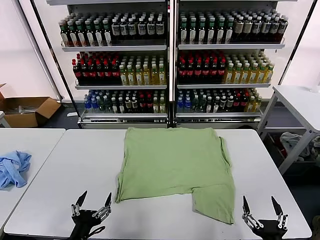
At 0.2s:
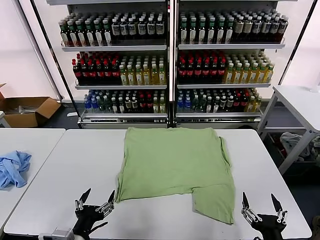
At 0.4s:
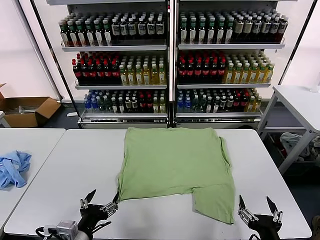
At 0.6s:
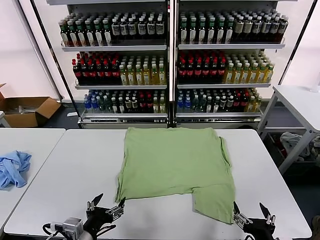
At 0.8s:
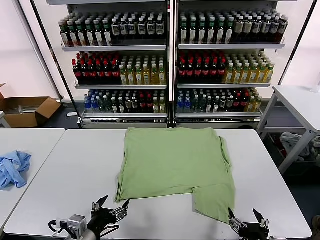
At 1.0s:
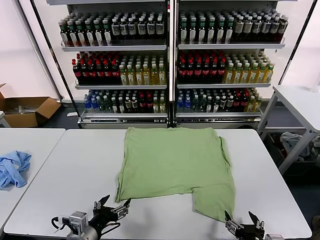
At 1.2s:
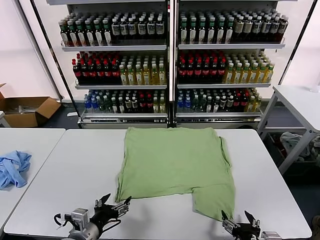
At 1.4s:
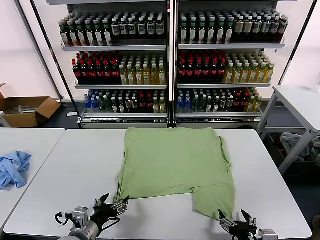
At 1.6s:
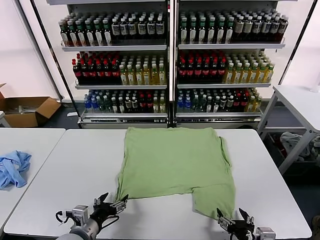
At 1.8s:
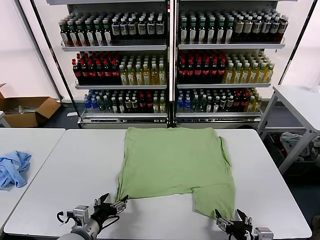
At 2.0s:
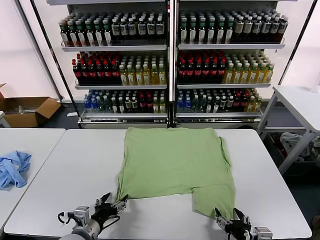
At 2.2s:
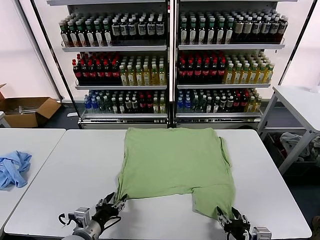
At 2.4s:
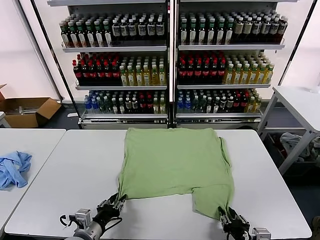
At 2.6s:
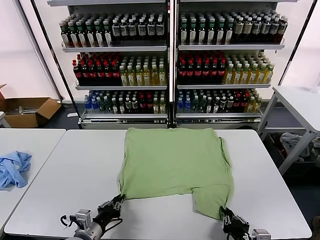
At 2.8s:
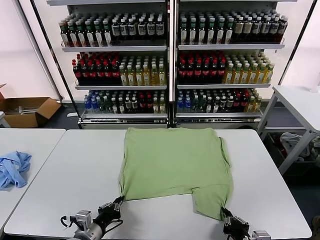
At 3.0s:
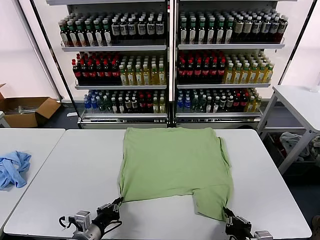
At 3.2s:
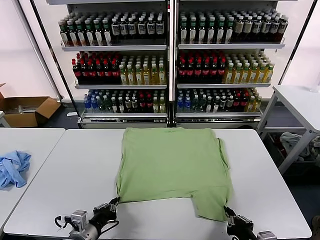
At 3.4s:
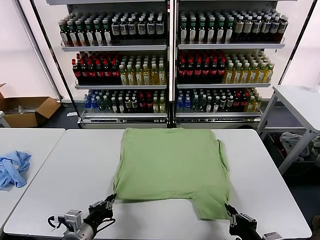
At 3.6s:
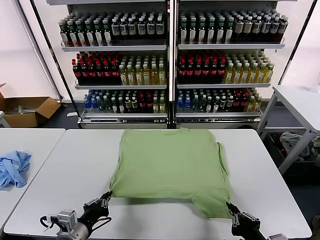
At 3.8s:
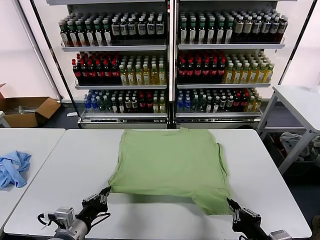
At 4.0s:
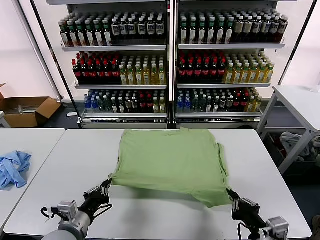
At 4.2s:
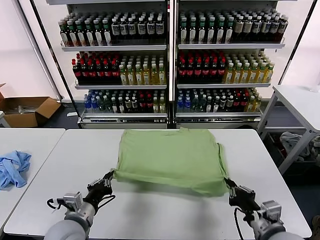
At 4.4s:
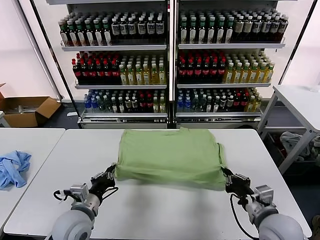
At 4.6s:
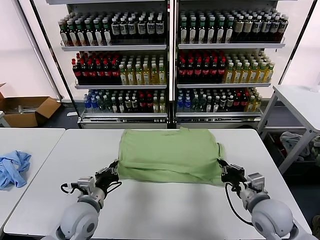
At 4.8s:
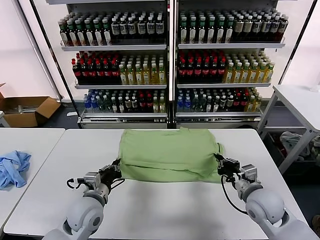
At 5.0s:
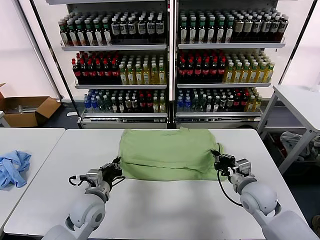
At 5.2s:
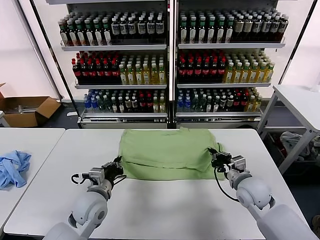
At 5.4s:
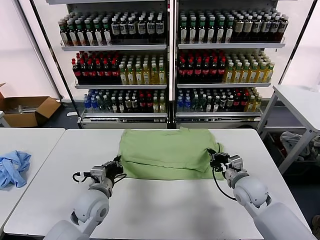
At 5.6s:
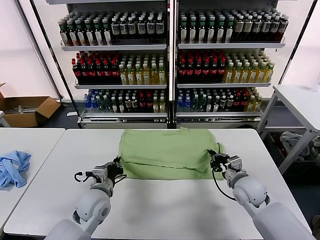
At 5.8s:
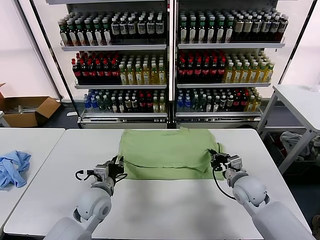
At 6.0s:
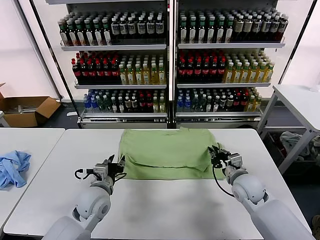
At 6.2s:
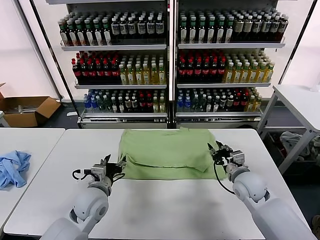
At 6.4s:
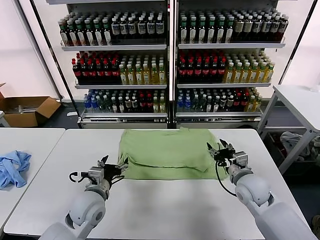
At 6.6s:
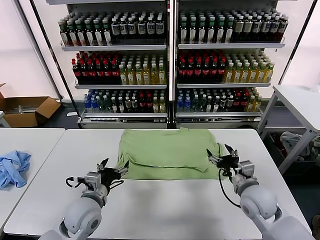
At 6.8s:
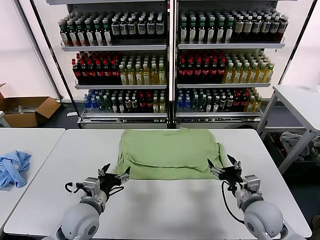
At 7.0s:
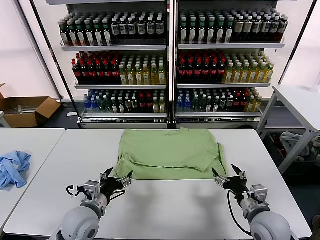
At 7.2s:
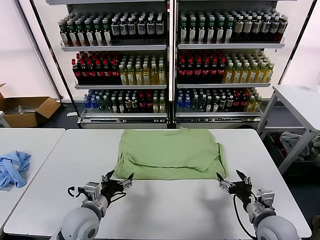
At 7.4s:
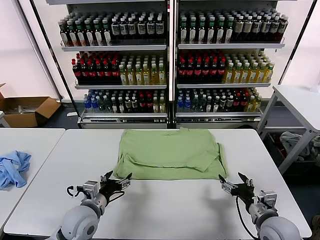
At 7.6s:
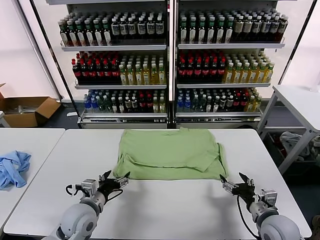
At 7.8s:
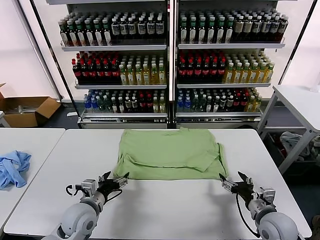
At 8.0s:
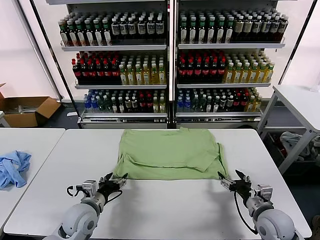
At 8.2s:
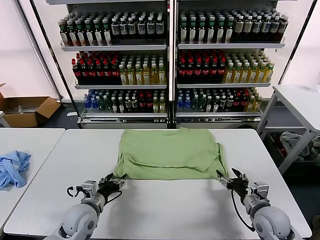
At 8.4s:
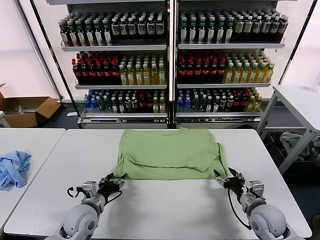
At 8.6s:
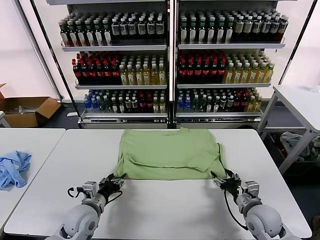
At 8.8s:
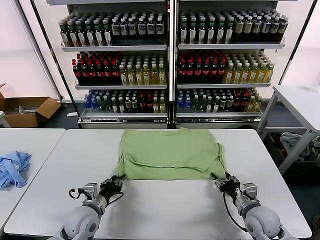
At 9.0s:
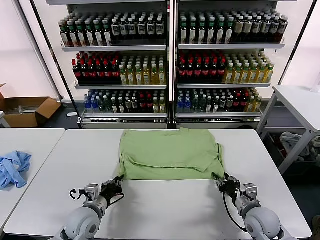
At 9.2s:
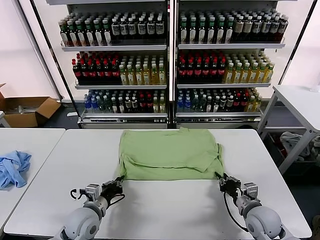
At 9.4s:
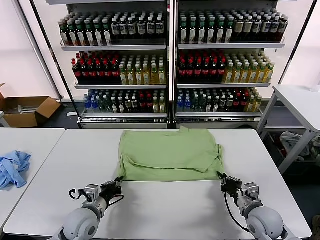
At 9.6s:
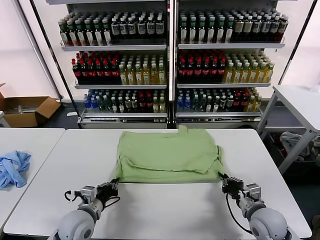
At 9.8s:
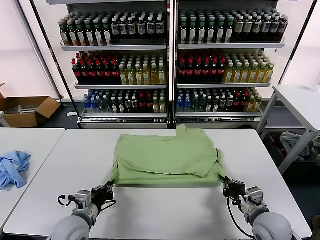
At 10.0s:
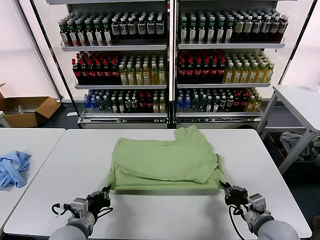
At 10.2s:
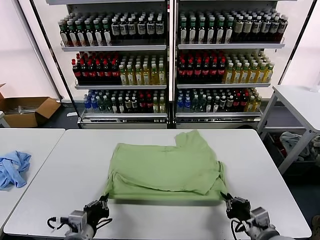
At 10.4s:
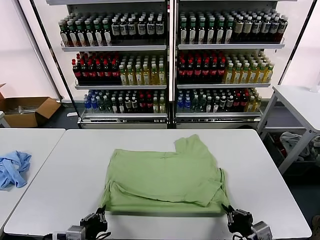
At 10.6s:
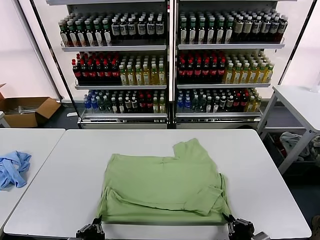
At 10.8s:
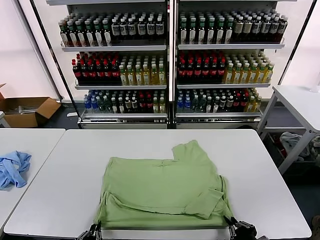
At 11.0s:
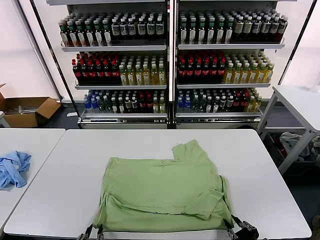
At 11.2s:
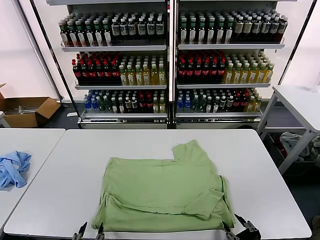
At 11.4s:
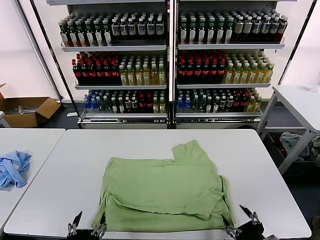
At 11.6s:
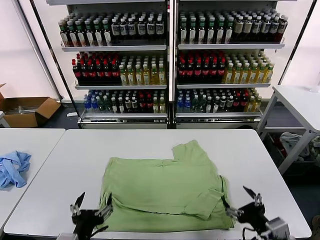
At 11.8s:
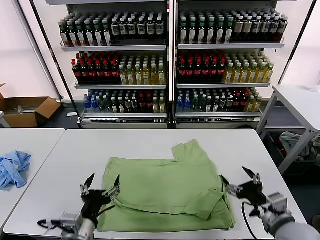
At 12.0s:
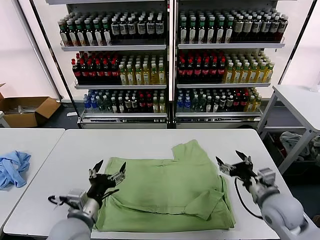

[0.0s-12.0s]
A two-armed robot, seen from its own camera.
Task of the whole recording: fold and organize the clothes.
Step, 0.0s to 2.8s: use both grippers simultaneously to clamp the lower edge of the clothing fabric.
Step, 3.0s to 6.0s: use both grippers to drag the lower edge of the fabric forward and fold it over the upper edge.
Step, 6.2s to 11.0s: Drag the clothes downward with both gripper.
1.6s to 3.0s: The left gripper closes. Meanwhile the right gripper closes its fingers.
3.0s to 4.4s: The left gripper shifts roughly 5 cm forward; the right gripper shifts approximately 15 cm forward.
4.4s to 6.0s: The right gripper is displaced forward by roughly 10 cm, and opens up; the left gripper travels forward by roughly 5 cm, and opens up.
6.0s to 7.6s: The left gripper ends up about 5 cm from where it was, and opens. The right gripper travels backward and to the right by roughly 15 cm, and opens up.
7.6s to 9.0s: The left gripper closes its fingers; the right gripper closes its fingers.
9.0s to 10.4s: Both grippers move backward, approximately 15 cm.
10.4s to 12.0s: The right gripper goes some 20 cm forward, and opens up, while the left gripper heads forward, covering approximately 10 cm, and opens.

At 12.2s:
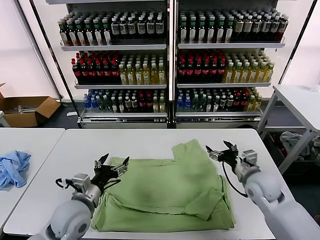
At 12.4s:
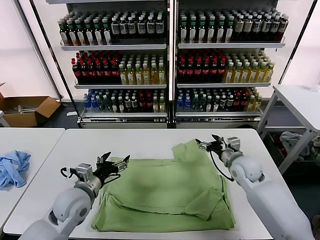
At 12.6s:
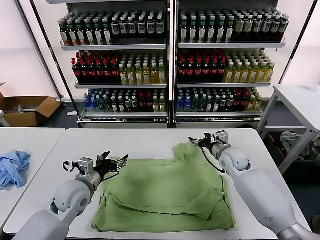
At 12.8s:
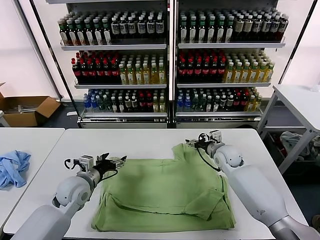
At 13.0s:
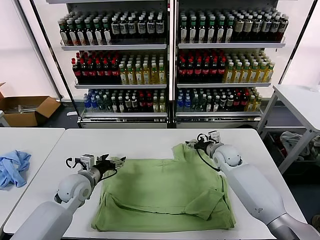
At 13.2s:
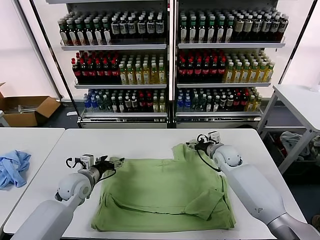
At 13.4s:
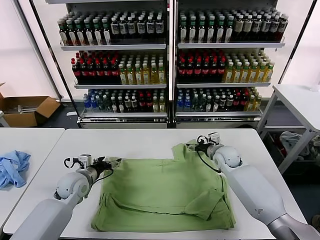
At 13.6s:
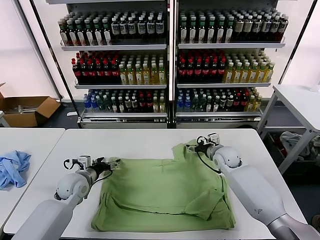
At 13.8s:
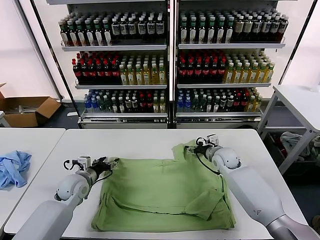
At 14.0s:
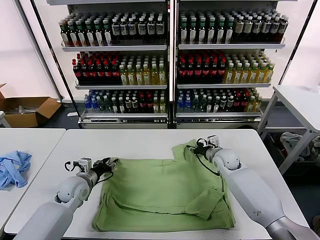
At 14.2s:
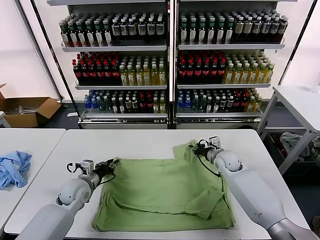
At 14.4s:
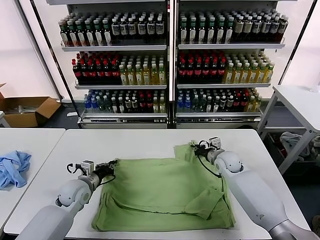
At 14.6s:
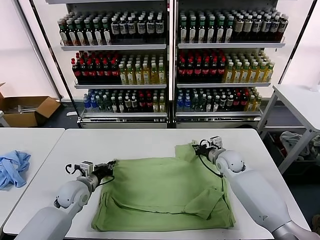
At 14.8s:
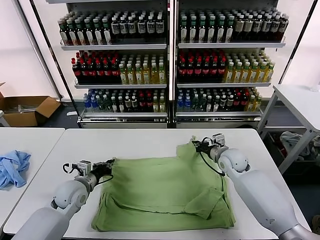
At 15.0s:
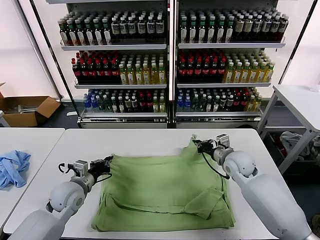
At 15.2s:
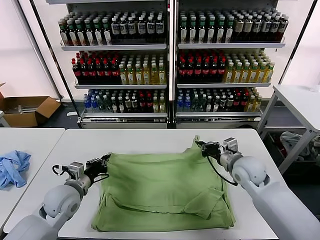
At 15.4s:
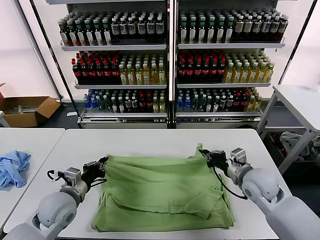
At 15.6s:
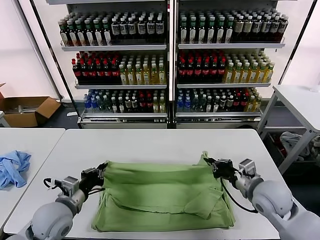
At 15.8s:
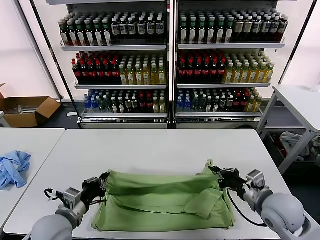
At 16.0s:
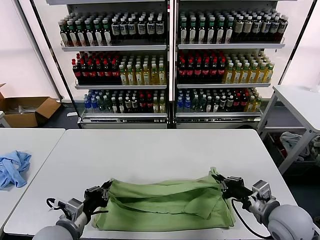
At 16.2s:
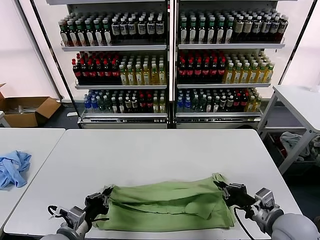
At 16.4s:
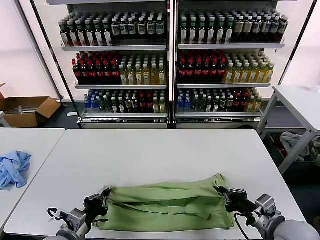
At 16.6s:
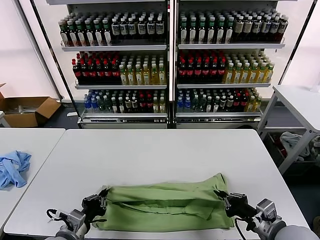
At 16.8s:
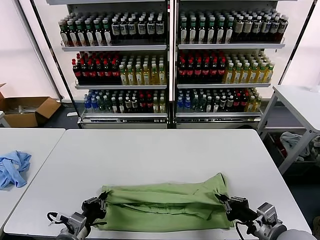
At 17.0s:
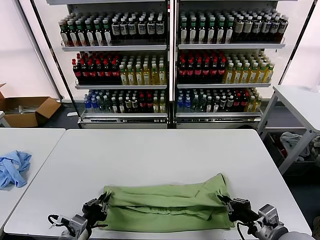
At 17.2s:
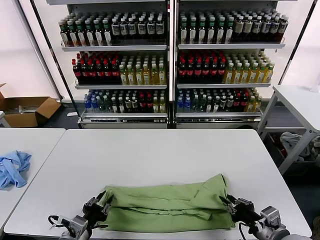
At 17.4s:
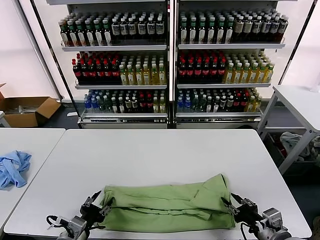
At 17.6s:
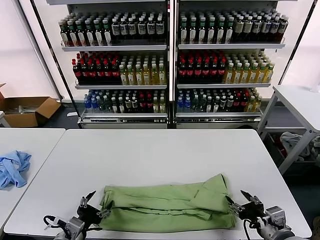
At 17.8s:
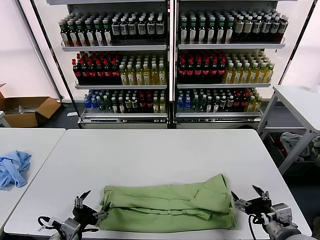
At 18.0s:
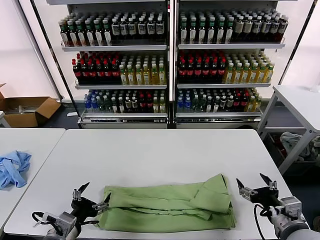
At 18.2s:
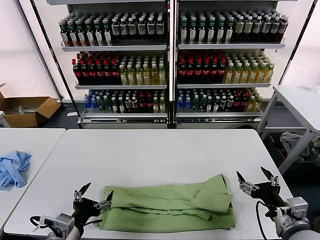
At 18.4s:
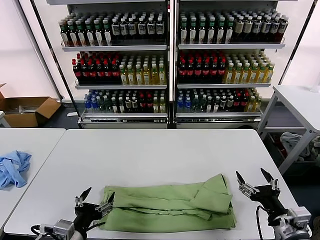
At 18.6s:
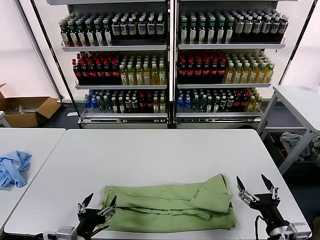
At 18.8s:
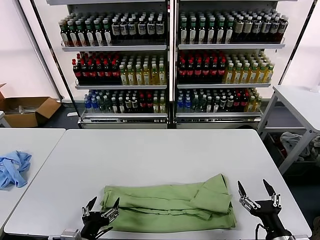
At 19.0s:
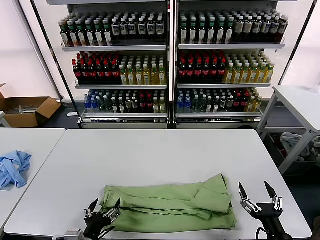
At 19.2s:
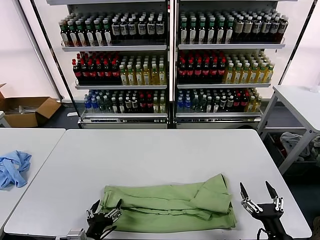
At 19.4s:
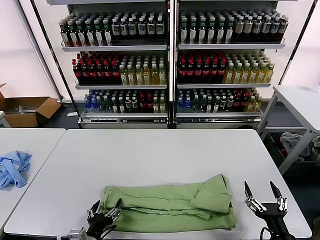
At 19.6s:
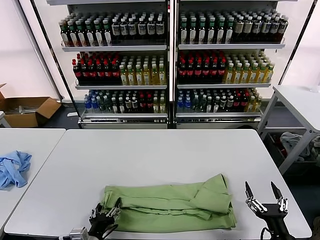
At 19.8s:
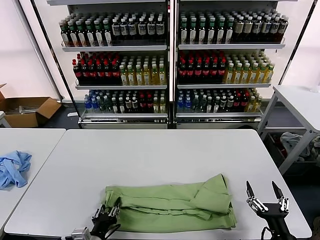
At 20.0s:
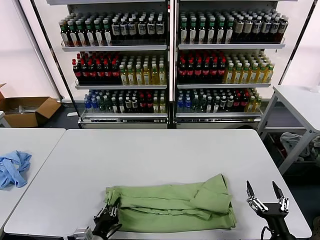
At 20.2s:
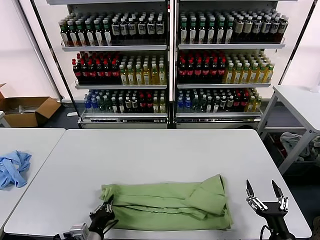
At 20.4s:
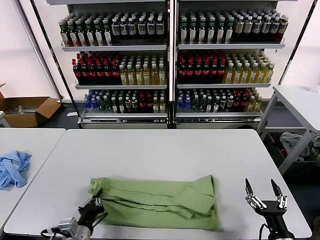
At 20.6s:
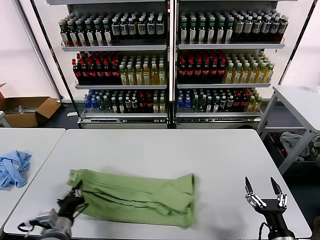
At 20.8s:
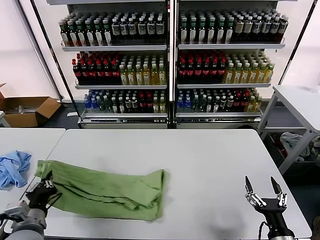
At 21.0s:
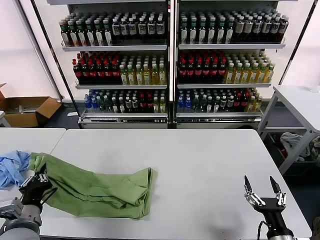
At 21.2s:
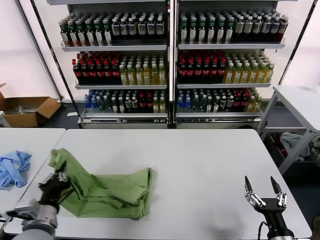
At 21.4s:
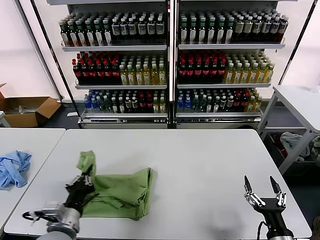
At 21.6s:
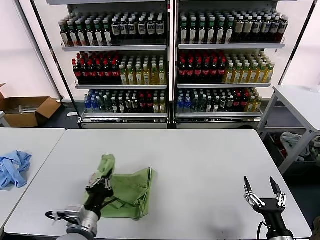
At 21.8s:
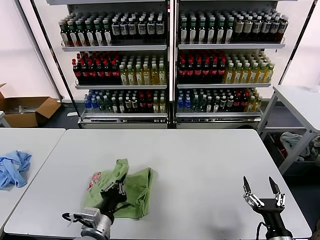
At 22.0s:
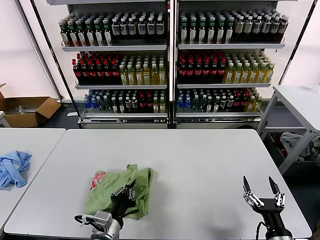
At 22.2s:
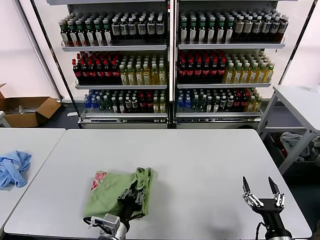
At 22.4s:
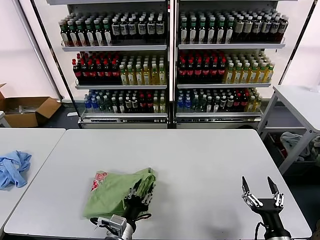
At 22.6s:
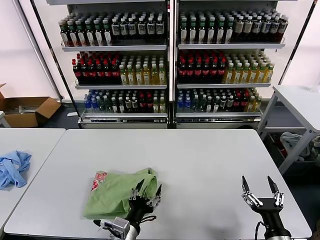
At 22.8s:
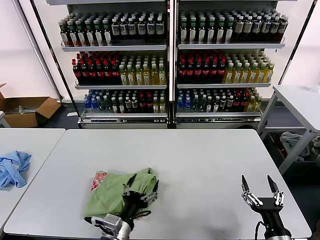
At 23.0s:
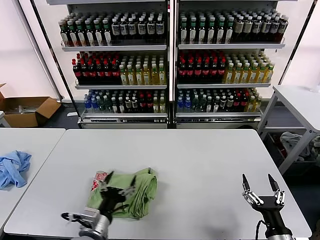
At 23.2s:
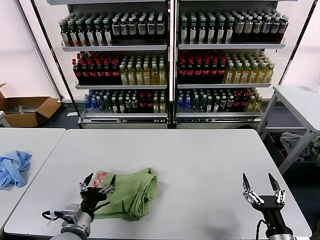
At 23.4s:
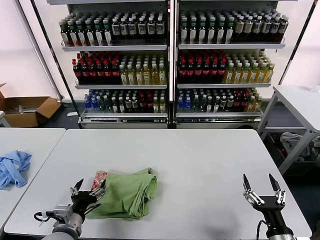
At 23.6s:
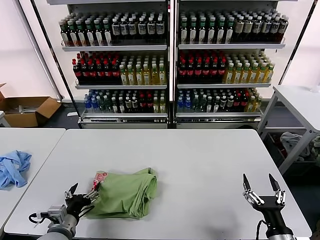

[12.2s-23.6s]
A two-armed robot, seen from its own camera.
Task of the whole recording: fold and organize the clothes.
Step, 12.2s to 14.4s: use both grippers simultaneously to clamp the upper edge of the clothing fabric.
Step, 14.6s to 17.4s: use both grippers to drag the upper edge of the fabric backward and fold it over the lower edge.
Step, 17.6s to 20.0s: use the left gripper to clamp the left edge of the fabric.
Step, 20.4s to 22.4s: use the left gripper to drag the left edge of the fabric to the left and folds it over the right edge.
12.2s to 13.6s: The left gripper moves forward, to the left and downward, approximately 15 cm, while the right gripper shifts about 10 cm forward.
13.6s to 15.0s: The left gripper moves backward, some 5 cm, and closes up; the right gripper is displaced backward and upward by approximately 10 cm, and closes its fingers.
15.0s to 16.4s: The two grippers go approximately 20 cm backward.
16.4s to 17.8s: The left gripper opens its fingers. Meanwhile the right gripper opens up.
17.8s to 19.4s: The right gripper travels downward and backward by roughly 10 cm; the left gripper is displaced downward and to the right by some 10 cm.
19.4s to 20.8s: The left gripper moves to the left and upward, some 15 cm, and closes.
20.8s to 22.2s: The left gripper goes about 20 cm to the right.
22.2s to 23.6s: The left gripper moves to the left, approximately 15 cm, and opens its fingers.
